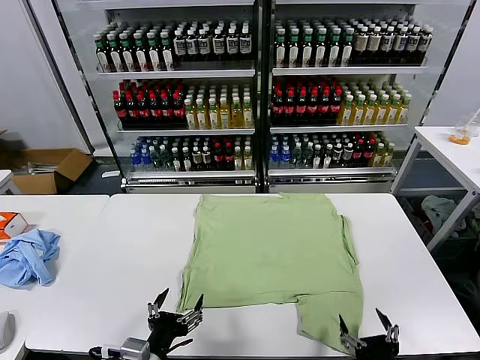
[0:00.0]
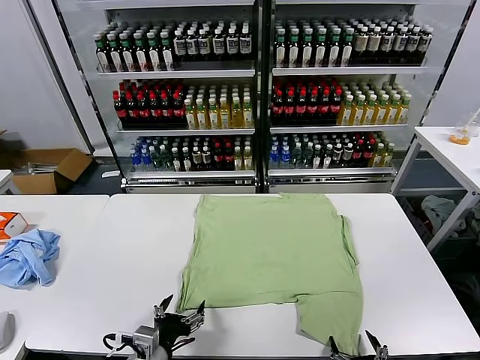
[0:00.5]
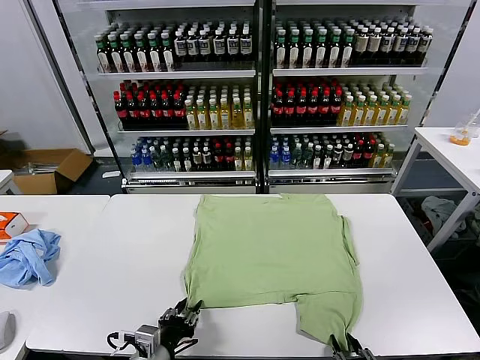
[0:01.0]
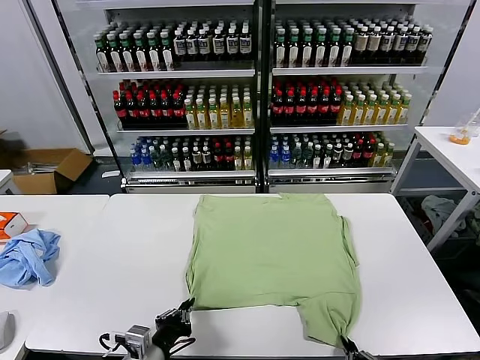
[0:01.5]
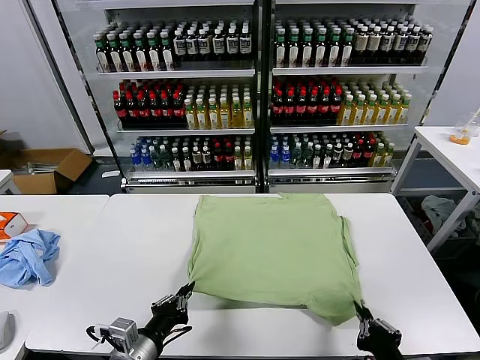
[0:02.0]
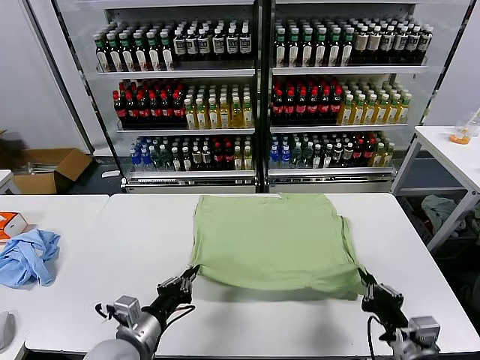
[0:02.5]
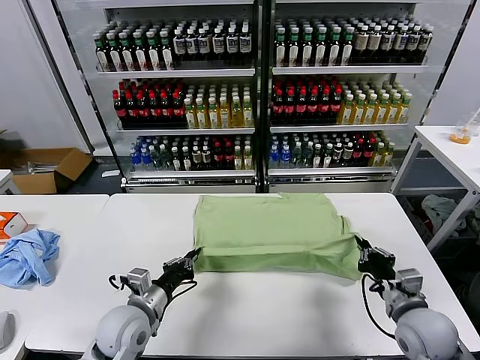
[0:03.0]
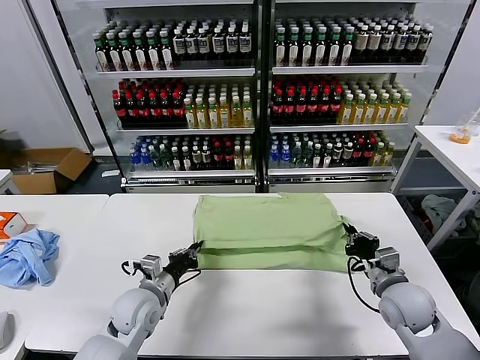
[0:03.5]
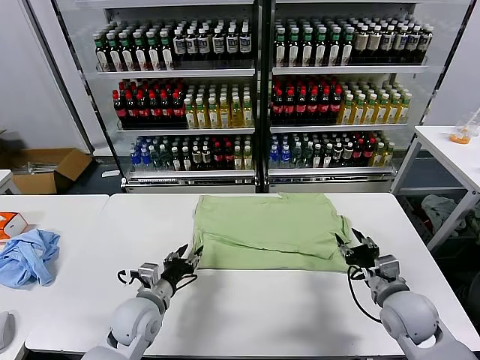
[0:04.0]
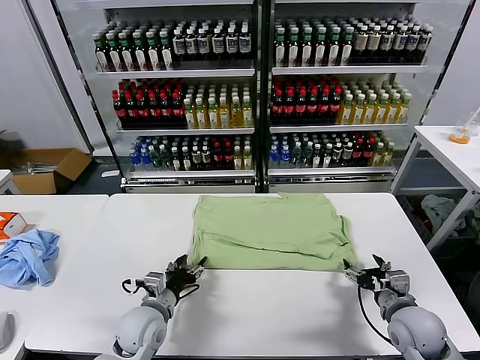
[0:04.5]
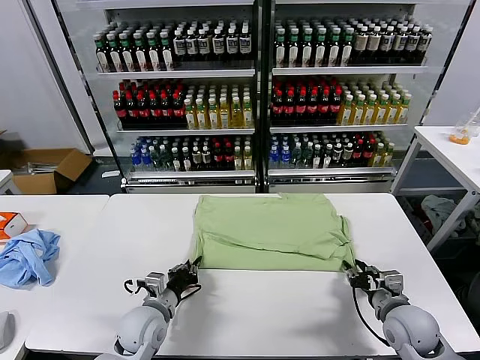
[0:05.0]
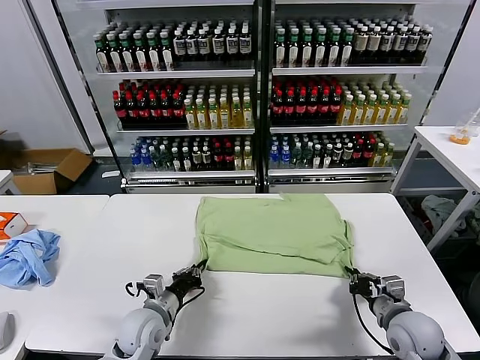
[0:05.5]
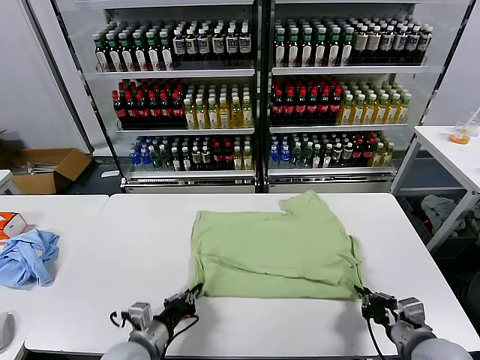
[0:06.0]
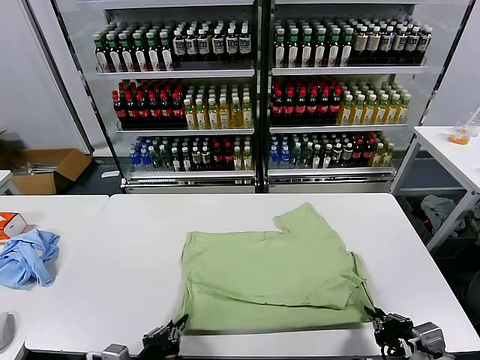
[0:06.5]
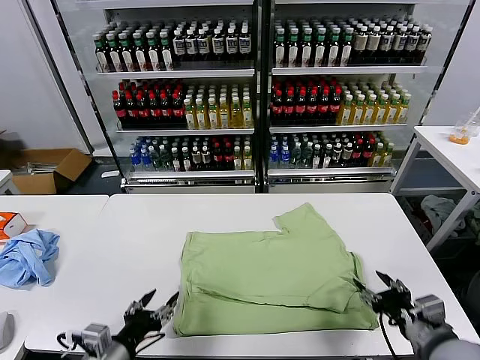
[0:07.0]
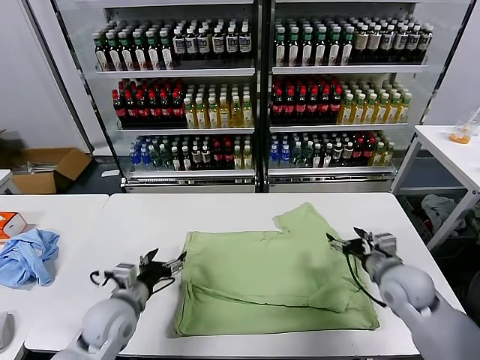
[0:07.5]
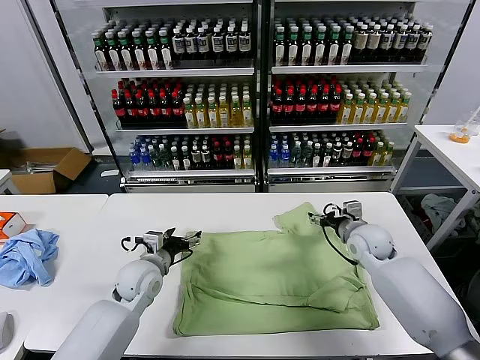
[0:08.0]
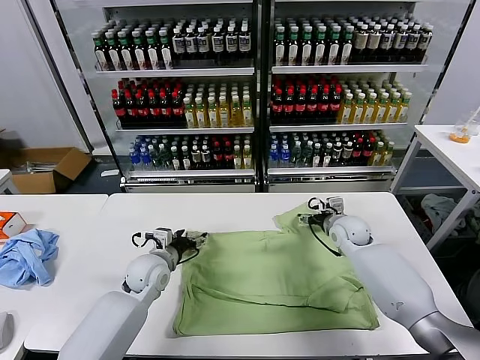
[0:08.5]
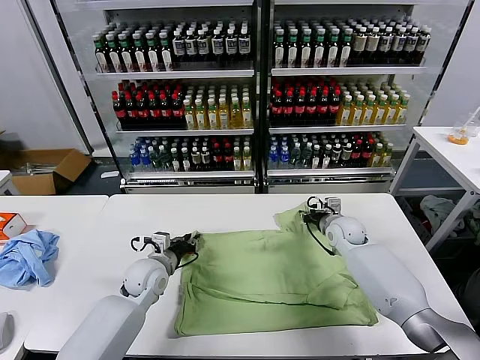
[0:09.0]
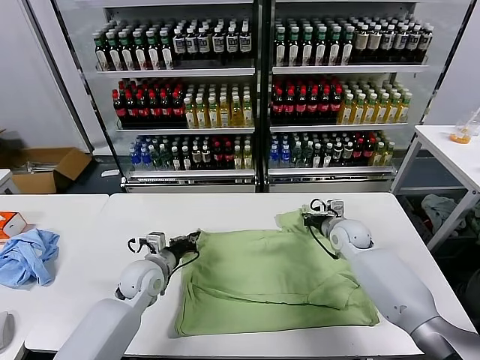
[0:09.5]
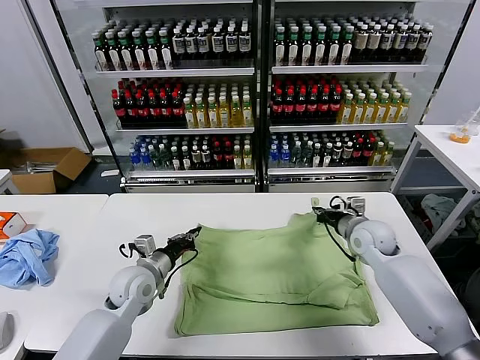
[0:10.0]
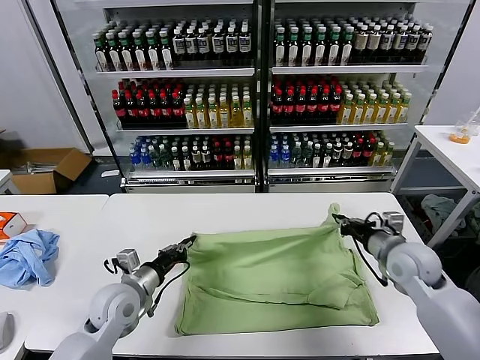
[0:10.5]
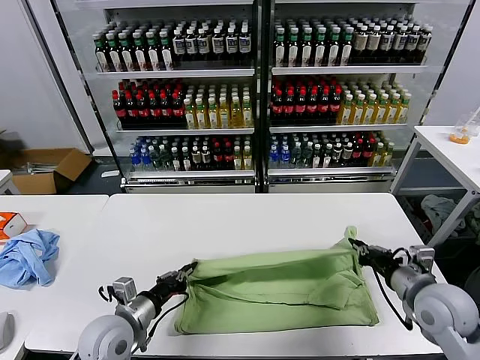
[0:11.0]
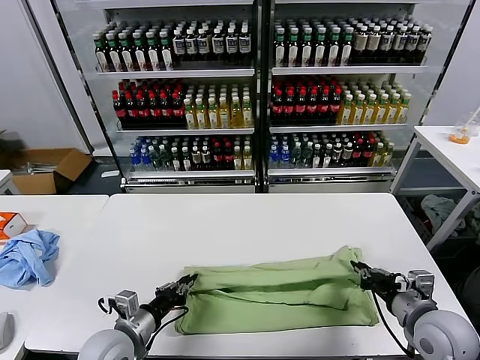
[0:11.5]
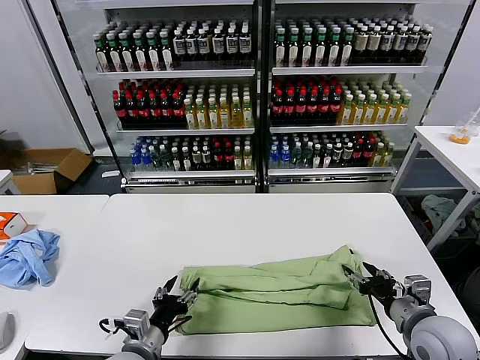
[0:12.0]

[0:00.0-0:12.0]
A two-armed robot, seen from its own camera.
Task of the whole recording: fold and organize the clothes.
Step, 0:00.0 to 0:01.5: use both grippers simultaneously to clamp the lower edge of the clothing fabric.
Step, 0:02.0 to 0:03.5: use both grippers to drag the lower edge of the fabric forward and fold it over the upper edge.
Step, 0:04.0 to 0:06.5: Drag the clothes downward with both gripper.
Step, 0:07.0 to 0:09.0: use both grippers simultaneously to clamp the upper edge of the clothing fabric.
0:02.0 to 0:04.0: The right gripper travels forward by roughly 15 cm, and opens its fingers; the left gripper travels forward and downward by approximately 15 cm, and opens up.
0:04.0 to 0:06.0: Both grippers travel together backward, approximately 10 cm. The left gripper closes. The right gripper closes its fingers.
0:06.0 to 0:08.0: The left gripper goes approximately 20 cm forward, and opens up, while the right gripper is displaced forward by approximately 30 cm, and opens.
0:08.0 to 0:10.0: The left gripper closes up; the right gripper closes up.
0:10.0 to 0:12.0: The grippers both shift backward by about 20 cm. The right gripper opens up. The left gripper opens up.

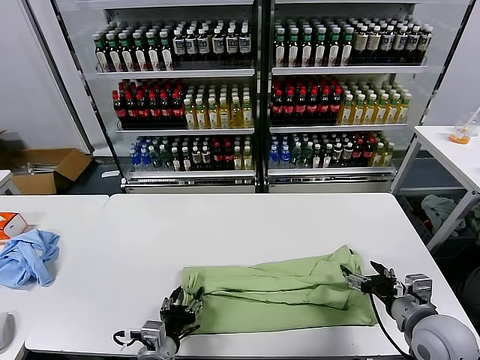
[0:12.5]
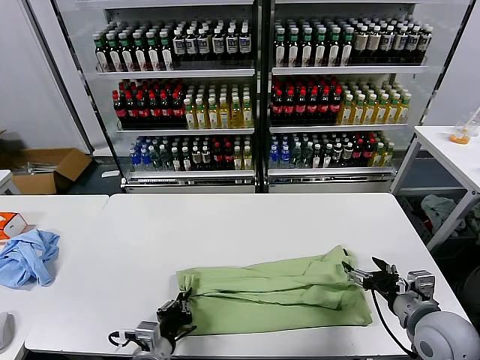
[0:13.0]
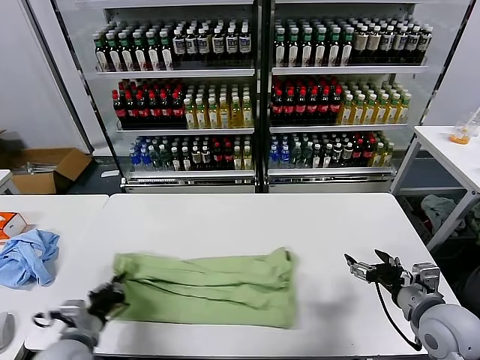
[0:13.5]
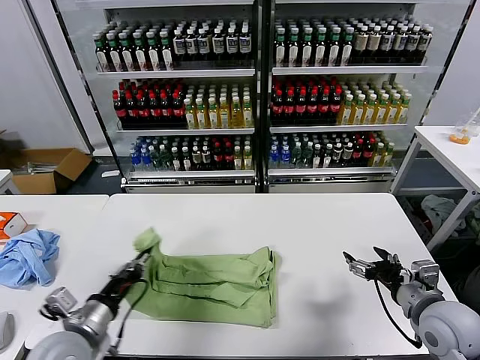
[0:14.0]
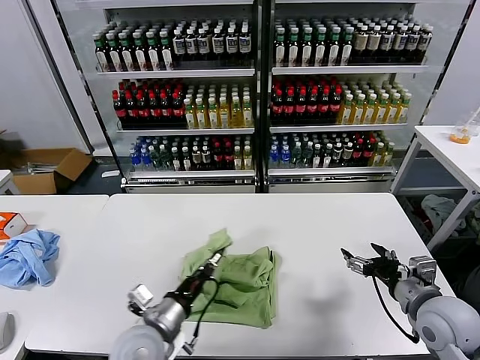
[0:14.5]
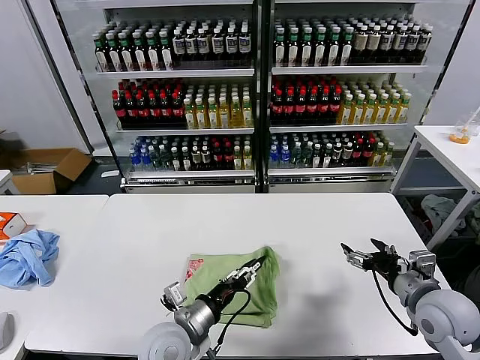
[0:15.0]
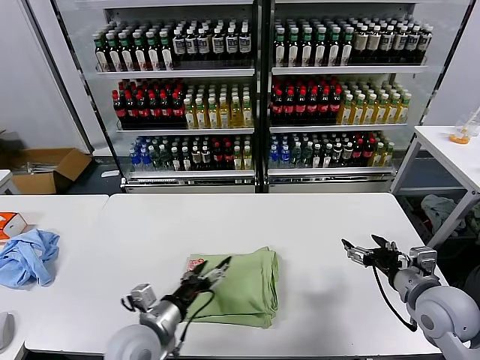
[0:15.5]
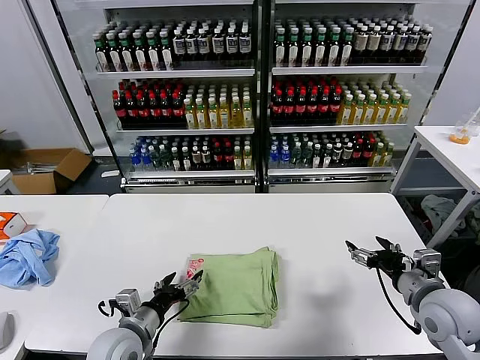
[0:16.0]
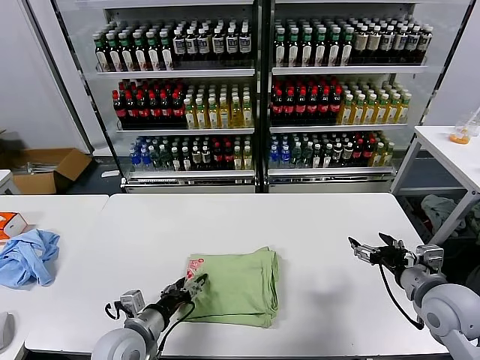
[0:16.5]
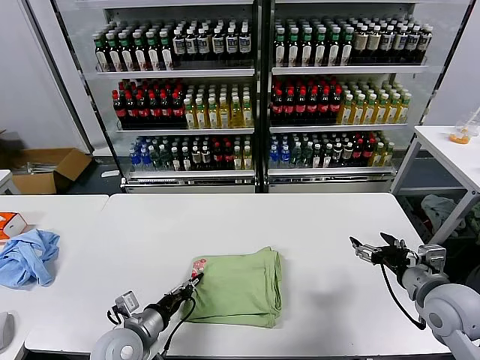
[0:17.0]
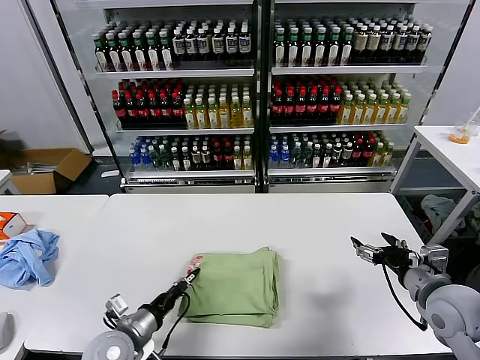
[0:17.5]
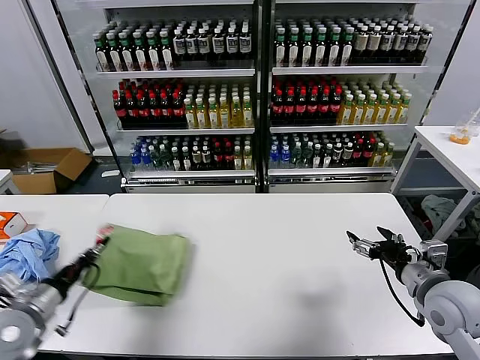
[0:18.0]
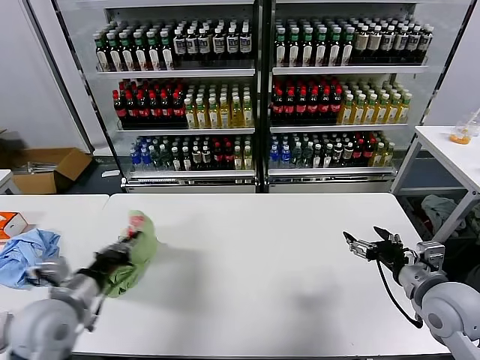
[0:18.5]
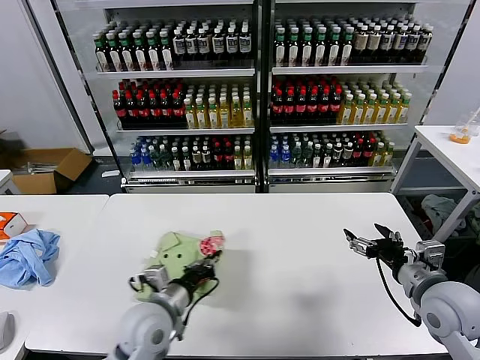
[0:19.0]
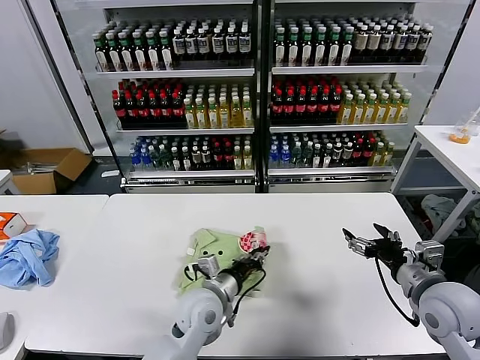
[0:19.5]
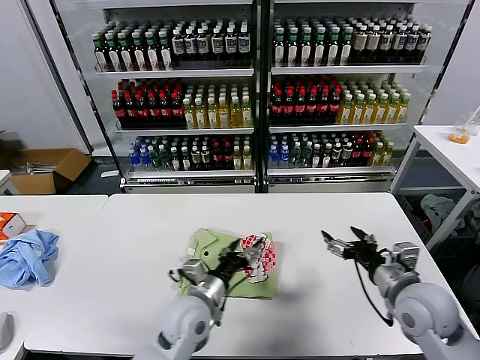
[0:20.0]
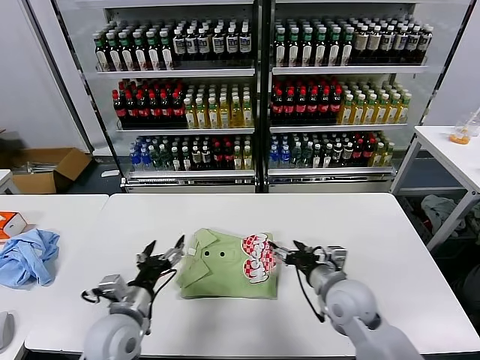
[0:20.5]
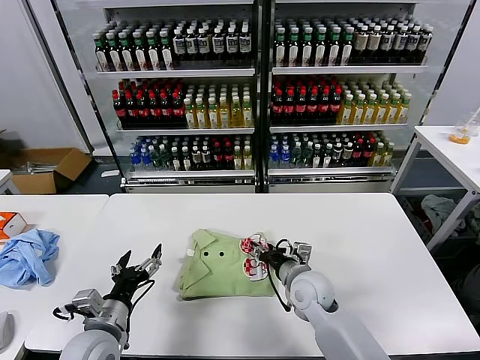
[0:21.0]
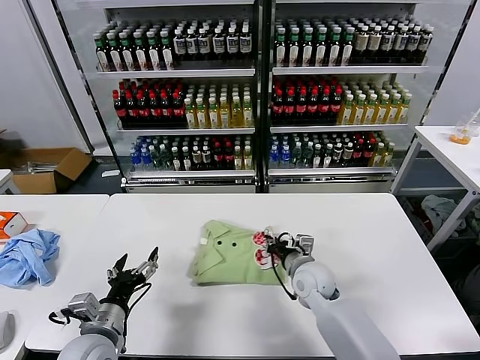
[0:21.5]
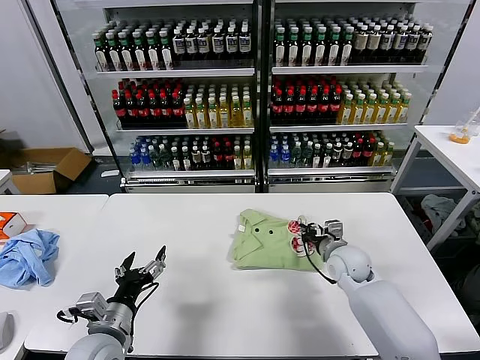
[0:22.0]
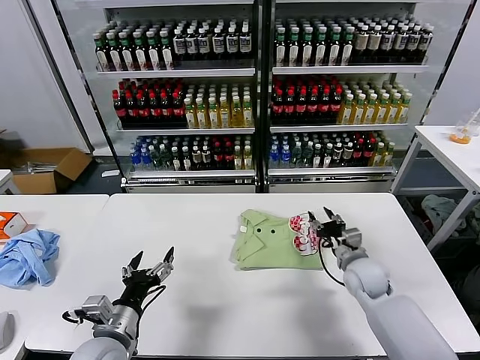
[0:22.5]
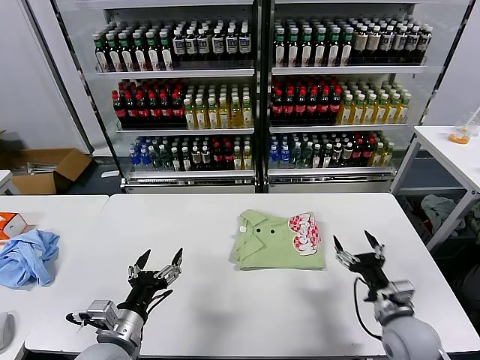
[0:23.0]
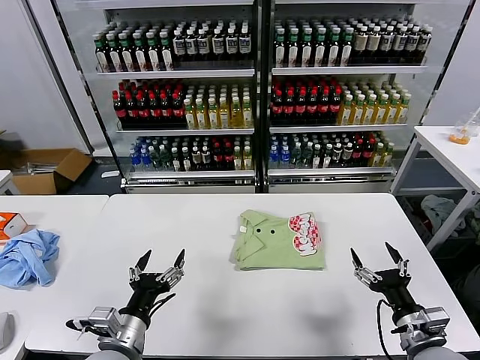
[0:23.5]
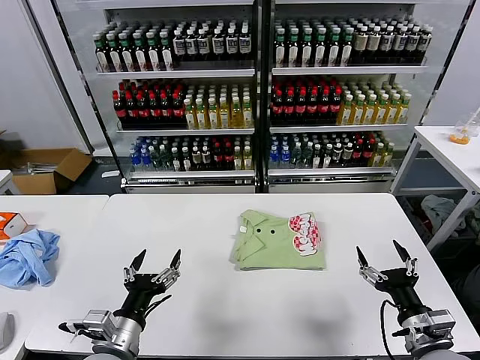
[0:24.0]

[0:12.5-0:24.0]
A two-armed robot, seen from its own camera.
Task of the whole recording: fold and organize the clothes.
Step, 0:12.5 to 0:13.0: use the left gripper to clamp the left edge of the fabric.
Step, 0:13.5 to 0:15.0: use the left gripper to drag the left edge of the fabric to the left and folds it over the right edge.
Step, 0:15.5 to 0:19.5: Flip the folded clothes over with left gripper.
Step, 0:20.0 to 0:22.0: Drag the clothes to the center of the table.
0:12.5 to 0:14.5: The left gripper heads upward, covering roughly 5 cm, reaches about 15 cm to the left, then returns, and closes.
0:14.5 to 0:16.5: The left gripper moves roughly 5 cm, and opens up.
0:16.5 to 0:18.5: The left gripper shifts roughly 15 cm upward and to the left, and closes its fingers.
0:18.5 to 0:20.0: The left gripper moves to the right, some 25 cm, and opens up.
0:20.0 to 0:22.0: The right gripper heads forward, downward and to the left, covering some 20 cm, and closes up. Meanwhile the left gripper shifts roughly 20 cm to the left and backward.
0:22.0 to 0:24.0: The right gripper moves backward, some 25 cm, and opens up. Meanwhile the left gripper shifts by roughly 5 cm.

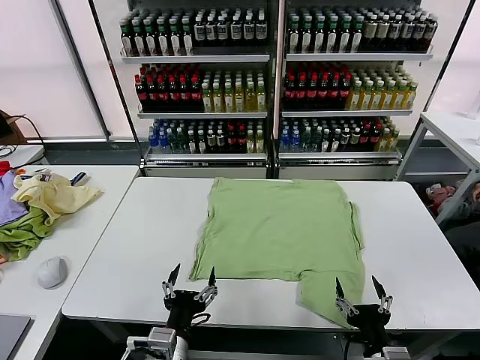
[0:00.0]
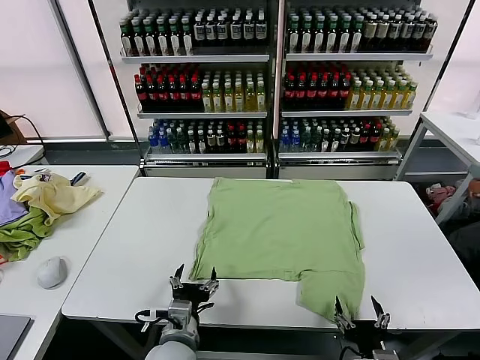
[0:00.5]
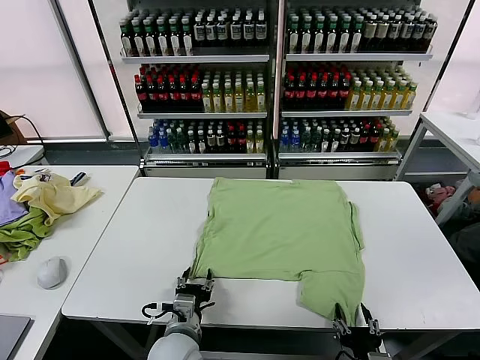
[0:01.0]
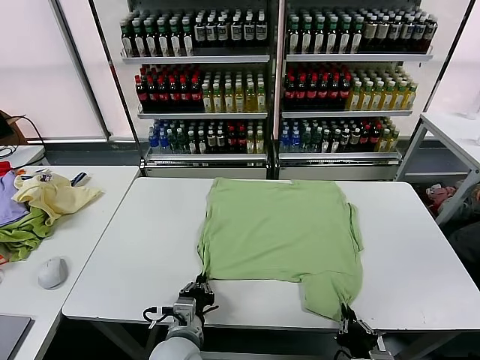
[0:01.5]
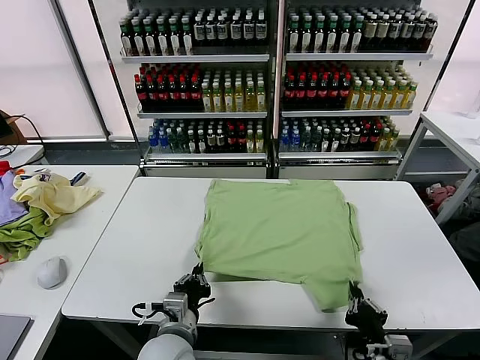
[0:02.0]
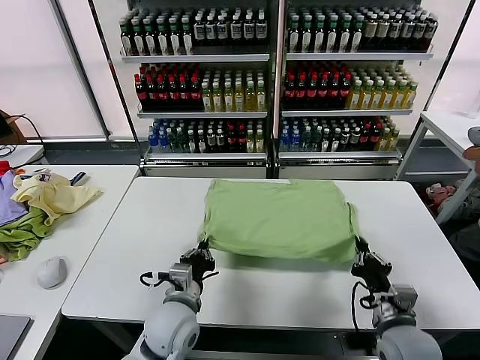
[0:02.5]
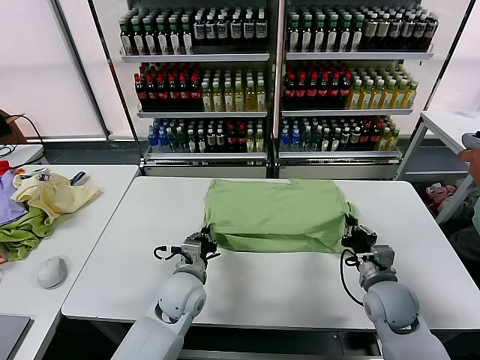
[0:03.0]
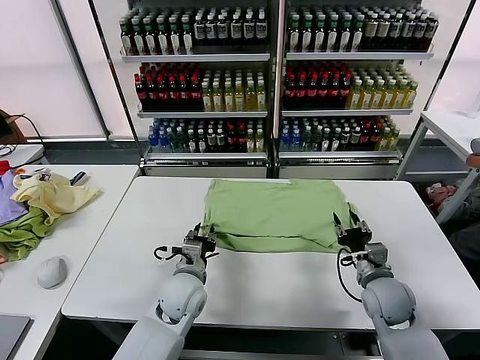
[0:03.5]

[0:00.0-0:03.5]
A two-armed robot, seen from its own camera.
Task of the whole recording: fold and organize the clothes.
Step, 0:00.0 to 0:01.5: use both grippers simultaneously to clamp the lower edge of the clothing fabric.
Step, 0:02.0 to 0:03.5: use both grippers to drag the lower edge of the fabric forward and fold it over the upper edge.
0:02.0 to 0:03.5: The grippers both shift forward by some 15 cm. The right gripper opens up. Meanwhile the left gripper opens up.
